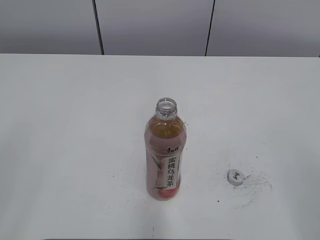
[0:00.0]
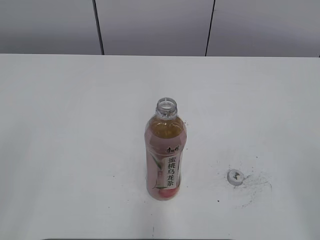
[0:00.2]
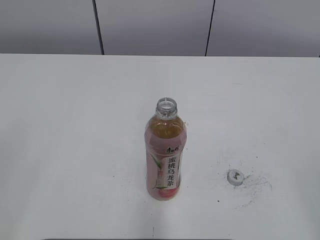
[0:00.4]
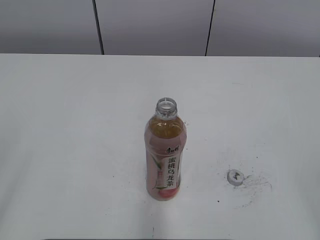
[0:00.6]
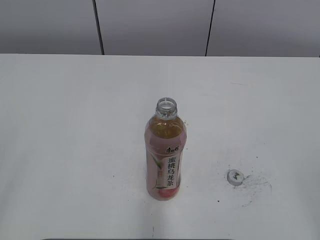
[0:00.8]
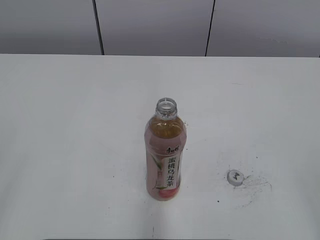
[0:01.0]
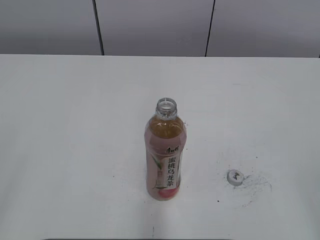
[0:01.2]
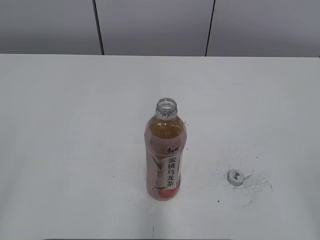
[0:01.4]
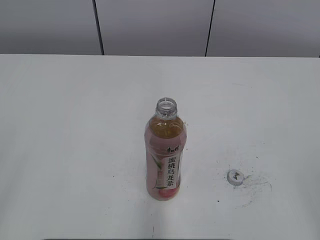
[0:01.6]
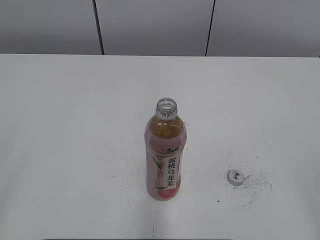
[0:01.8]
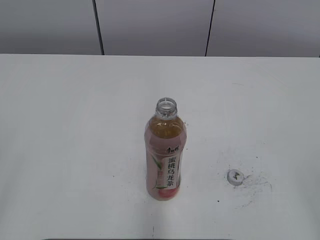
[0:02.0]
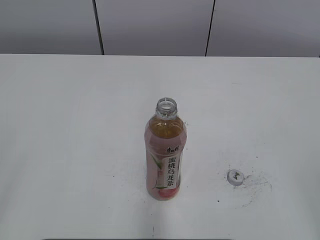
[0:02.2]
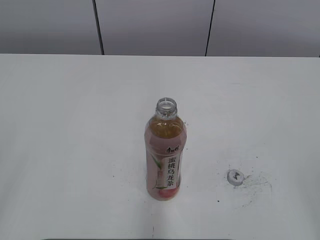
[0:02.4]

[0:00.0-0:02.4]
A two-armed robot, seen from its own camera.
0:01.2 to 0:02.4: Neither gripper changes place.

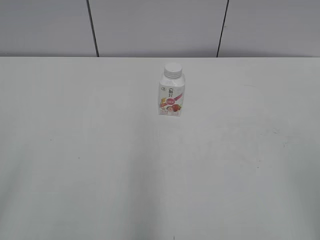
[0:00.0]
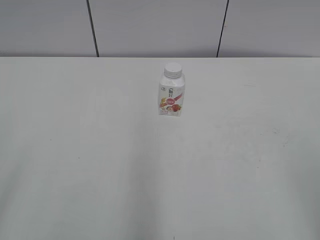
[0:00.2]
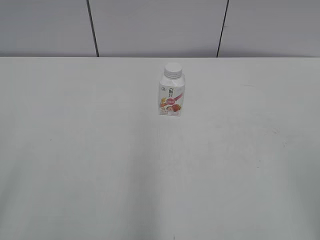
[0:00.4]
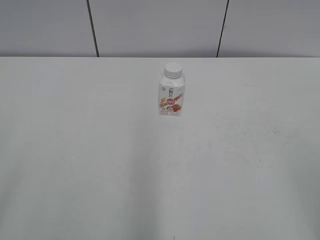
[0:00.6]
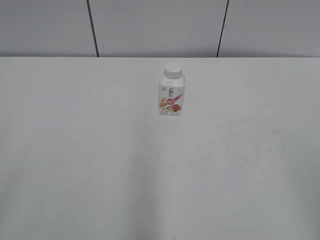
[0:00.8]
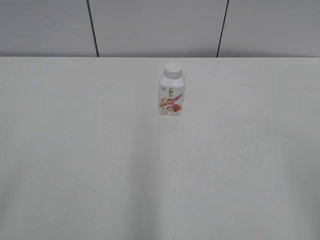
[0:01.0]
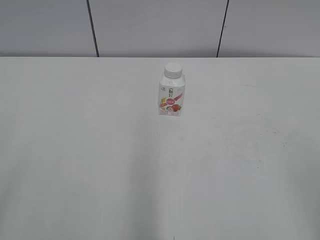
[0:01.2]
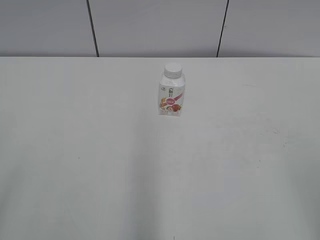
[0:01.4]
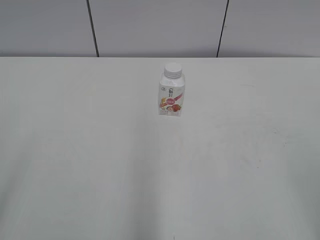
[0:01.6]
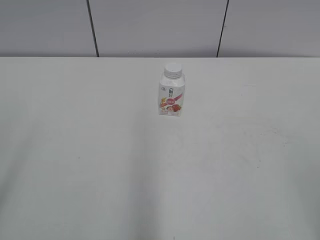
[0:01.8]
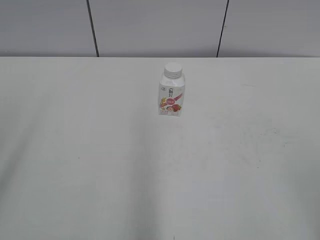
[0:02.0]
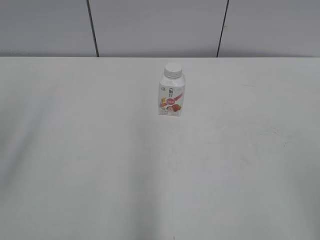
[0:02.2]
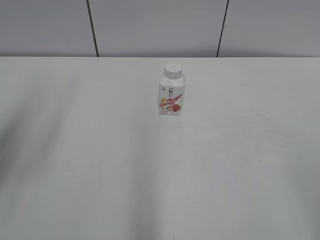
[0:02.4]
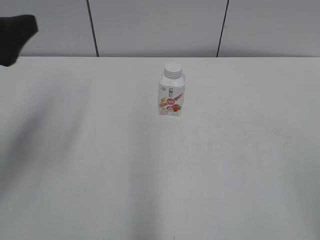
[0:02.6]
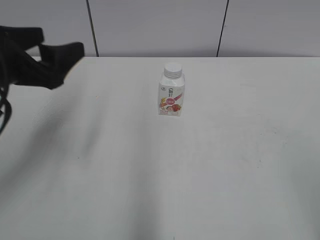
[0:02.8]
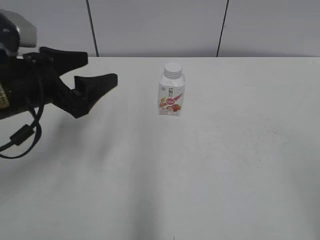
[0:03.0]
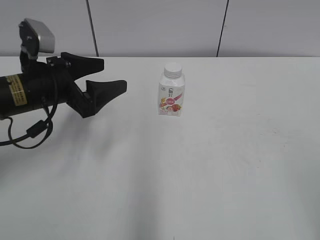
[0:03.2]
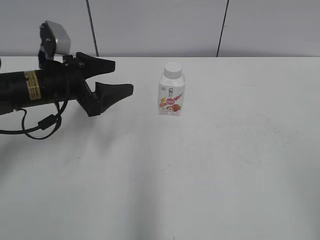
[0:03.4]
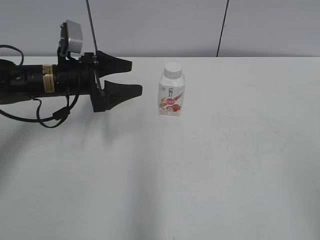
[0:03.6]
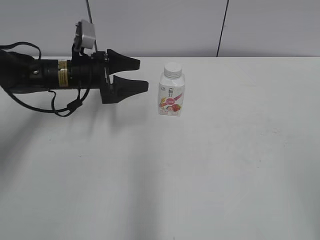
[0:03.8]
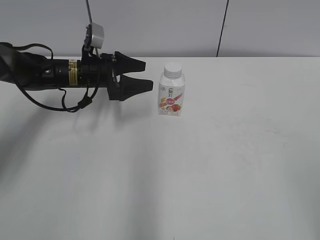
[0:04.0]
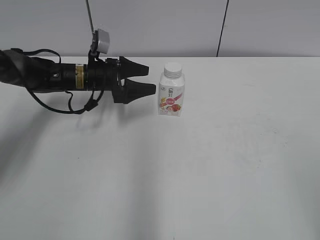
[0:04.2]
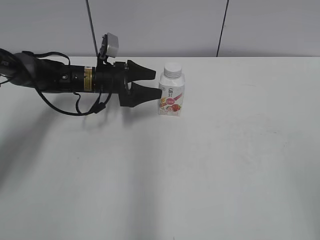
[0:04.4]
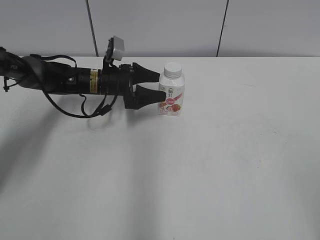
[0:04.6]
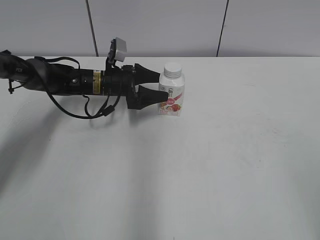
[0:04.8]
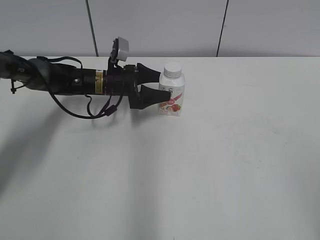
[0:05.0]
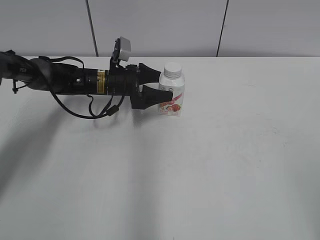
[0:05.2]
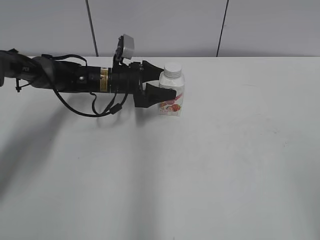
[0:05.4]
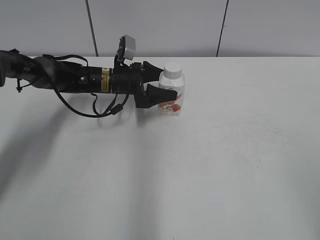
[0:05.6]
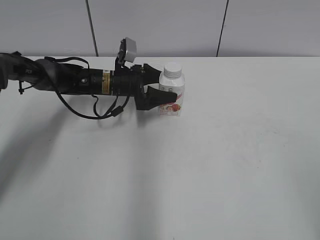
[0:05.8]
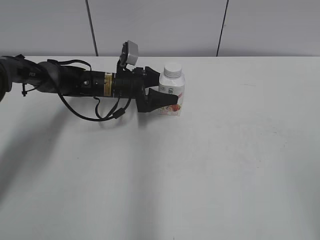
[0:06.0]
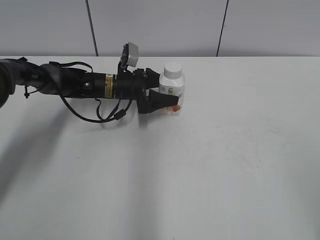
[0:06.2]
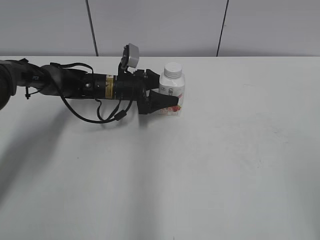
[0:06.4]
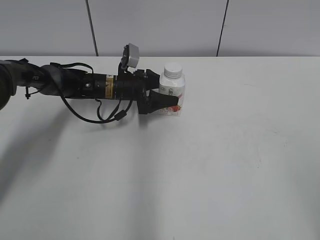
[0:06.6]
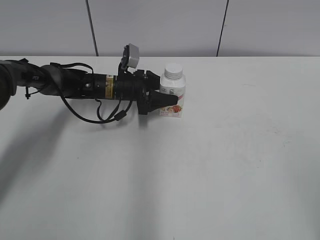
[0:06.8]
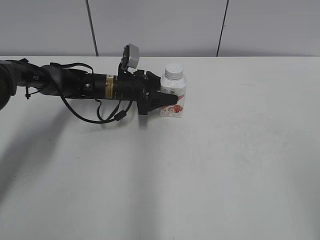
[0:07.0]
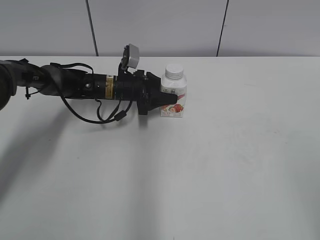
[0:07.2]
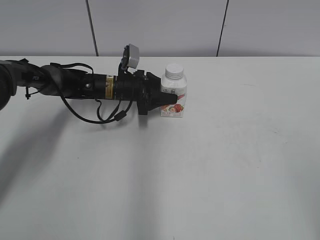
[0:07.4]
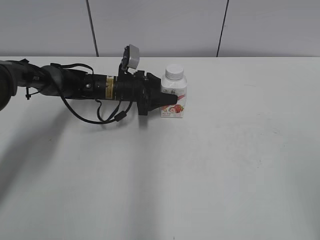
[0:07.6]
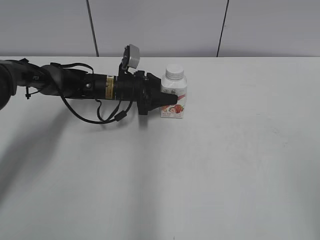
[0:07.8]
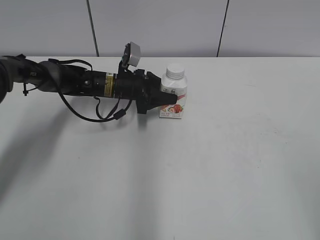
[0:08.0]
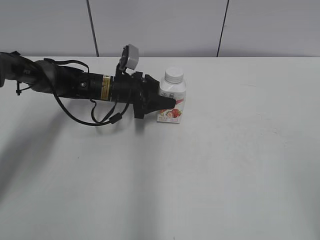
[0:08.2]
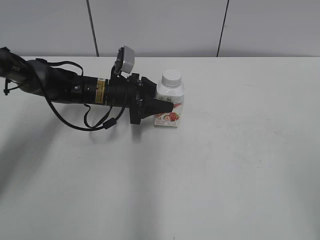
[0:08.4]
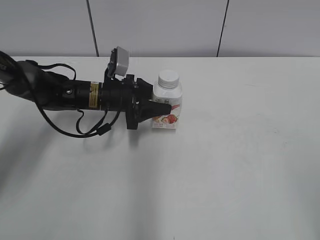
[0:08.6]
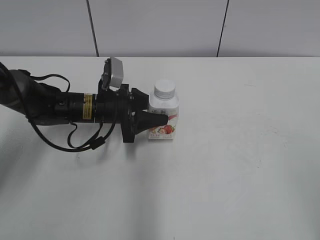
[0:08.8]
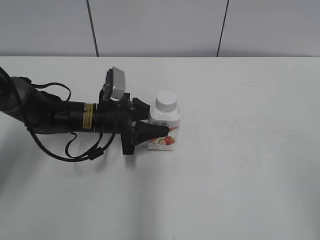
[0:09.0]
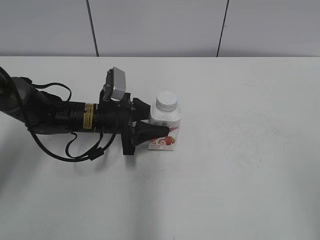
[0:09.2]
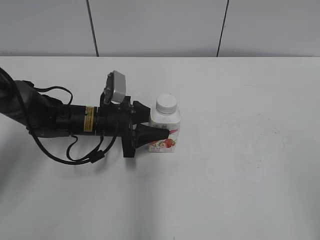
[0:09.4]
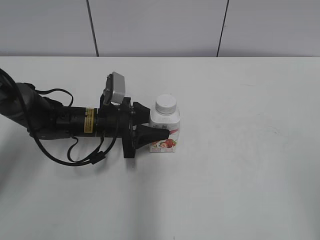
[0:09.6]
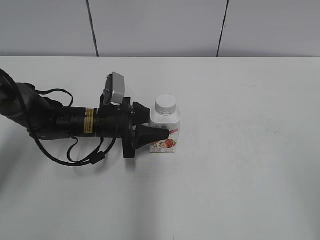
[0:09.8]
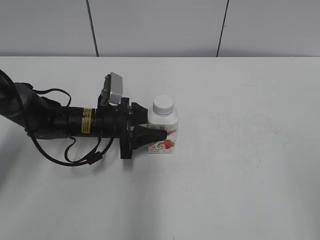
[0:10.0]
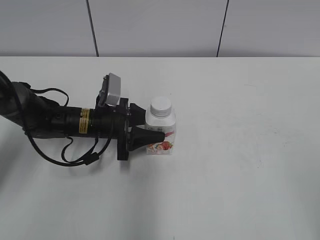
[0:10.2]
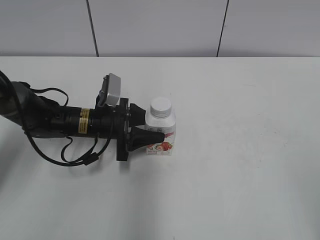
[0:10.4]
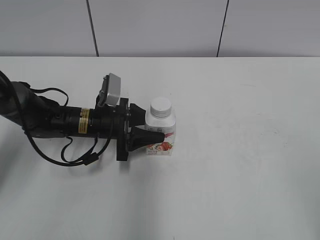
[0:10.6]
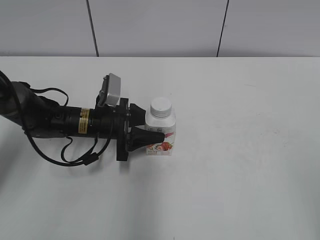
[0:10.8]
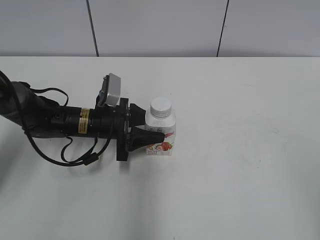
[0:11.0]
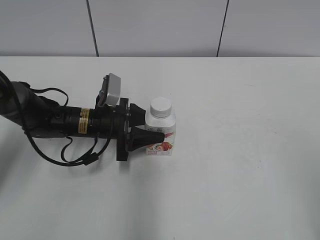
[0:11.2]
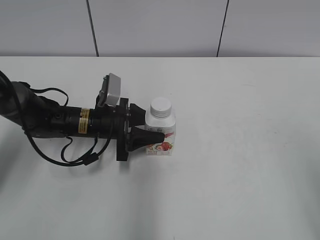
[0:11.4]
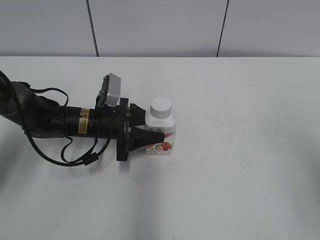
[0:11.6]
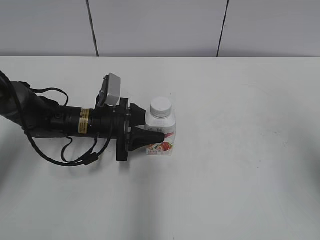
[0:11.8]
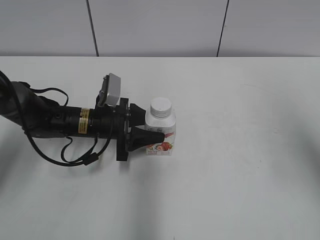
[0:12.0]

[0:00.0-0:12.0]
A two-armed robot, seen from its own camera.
Step, 0:00.0 to 0:06.8: Grab the Yili Changqing with the left hand.
Step, 0:07.2 to 0:10.2: Move the Yili Changqing from left to right.
0:01.6 to 0:03.0: The left gripper heads forward and to the right, covering roughly 30 cm.
0:03.0 to 0:04.4: The left gripper moves forward and downward, some 25 cm.
0:04.4 to 0:06.0: The grippers move only a little.
0:06.0 to 0:07.6: The left gripper closes its fingers.
0:07.6 to 0:09.0: The left gripper shifts about 10 cm backward.
0:09.0 to 0:10.4: There are only small adjustments of the grippers.
0:10.4 to 0:12.0: The right gripper moves forward, roughly 20 cm.

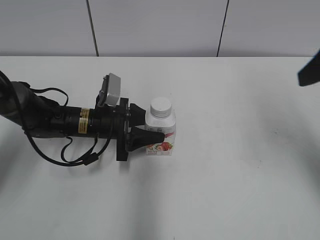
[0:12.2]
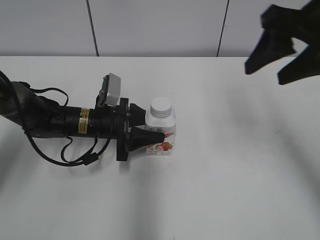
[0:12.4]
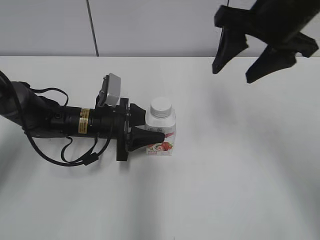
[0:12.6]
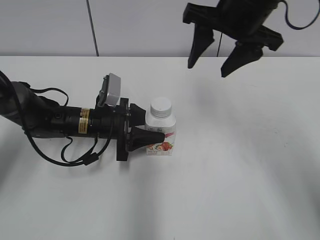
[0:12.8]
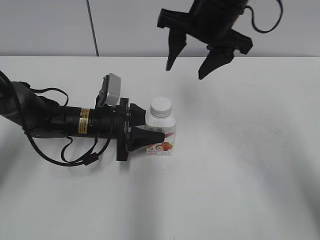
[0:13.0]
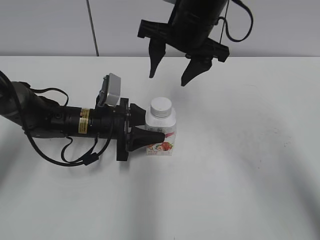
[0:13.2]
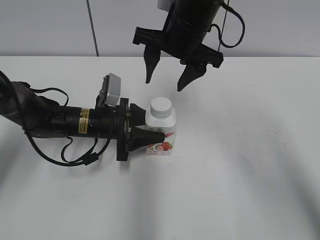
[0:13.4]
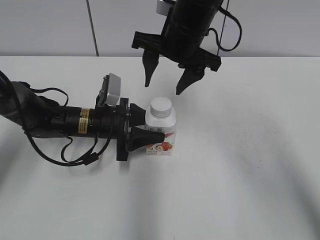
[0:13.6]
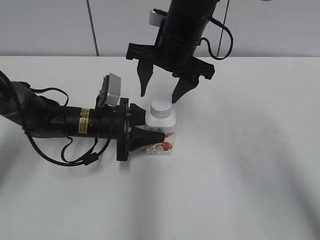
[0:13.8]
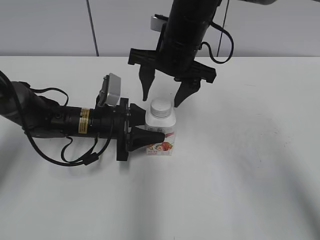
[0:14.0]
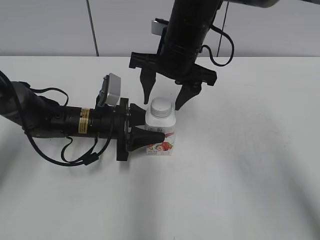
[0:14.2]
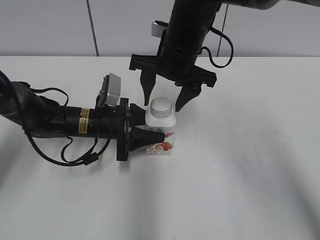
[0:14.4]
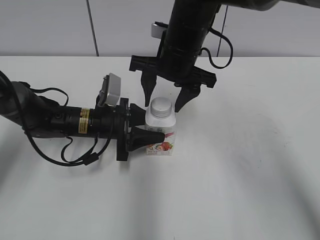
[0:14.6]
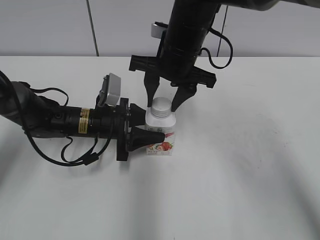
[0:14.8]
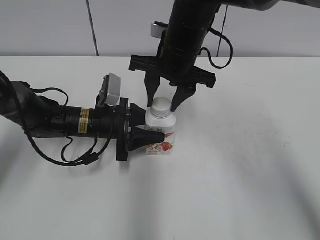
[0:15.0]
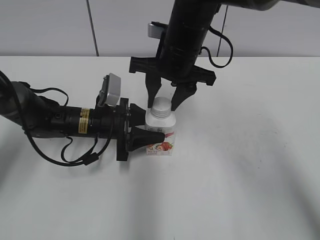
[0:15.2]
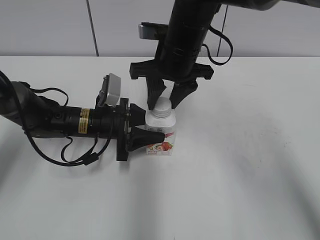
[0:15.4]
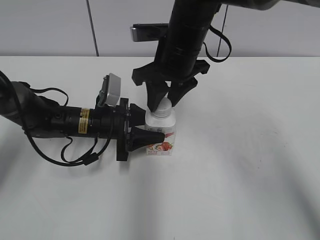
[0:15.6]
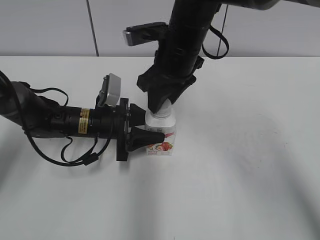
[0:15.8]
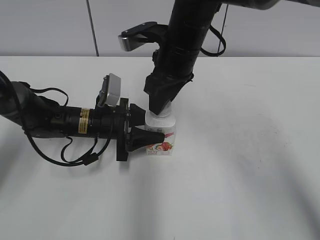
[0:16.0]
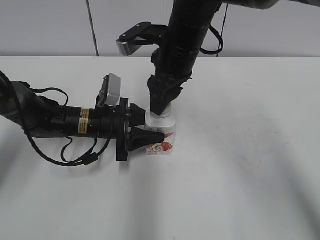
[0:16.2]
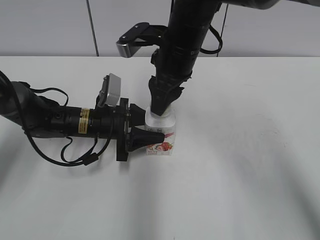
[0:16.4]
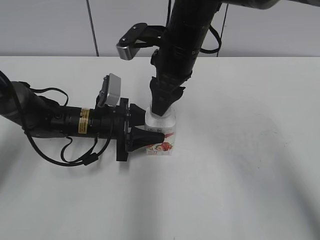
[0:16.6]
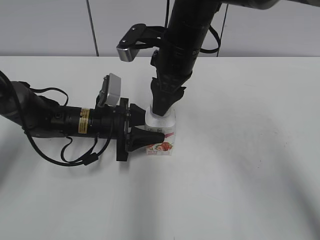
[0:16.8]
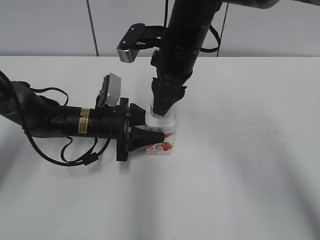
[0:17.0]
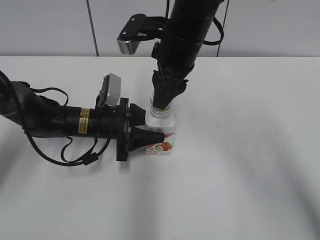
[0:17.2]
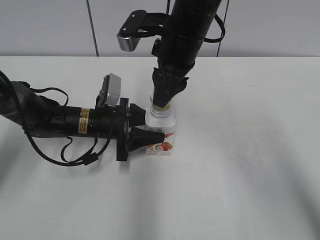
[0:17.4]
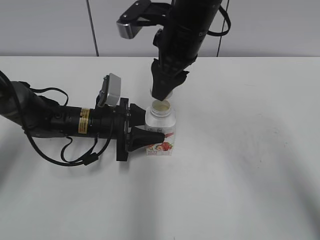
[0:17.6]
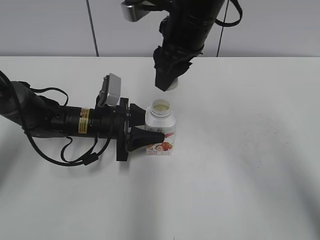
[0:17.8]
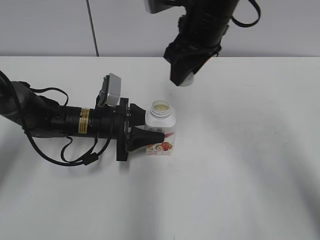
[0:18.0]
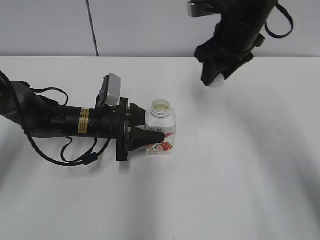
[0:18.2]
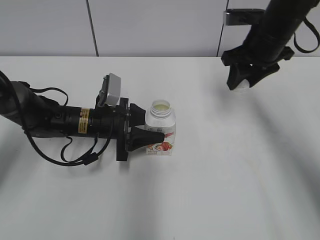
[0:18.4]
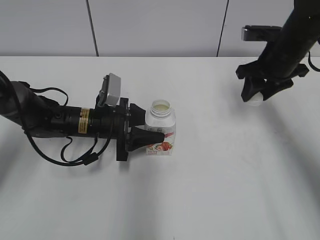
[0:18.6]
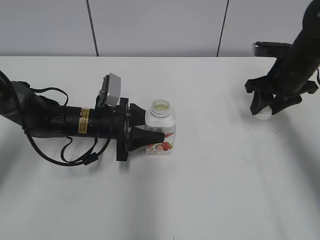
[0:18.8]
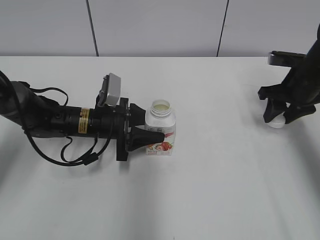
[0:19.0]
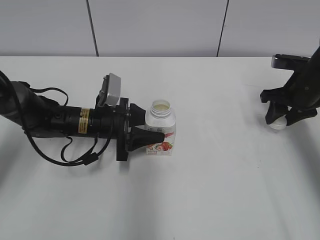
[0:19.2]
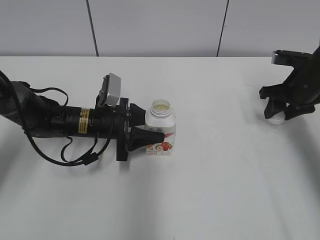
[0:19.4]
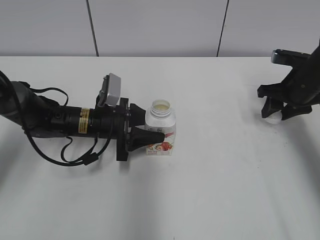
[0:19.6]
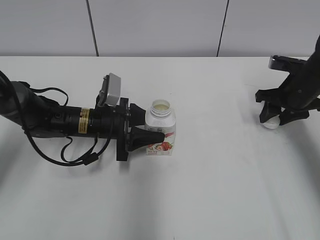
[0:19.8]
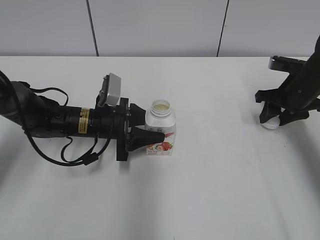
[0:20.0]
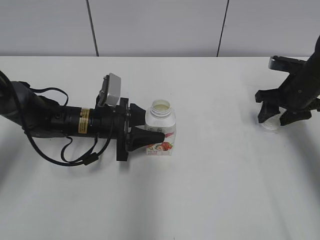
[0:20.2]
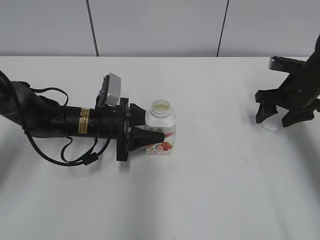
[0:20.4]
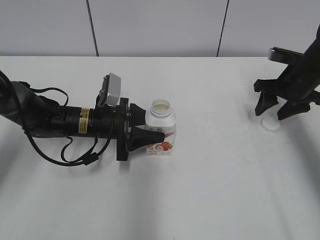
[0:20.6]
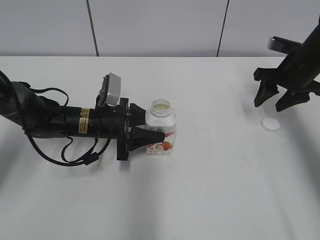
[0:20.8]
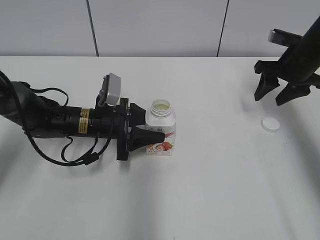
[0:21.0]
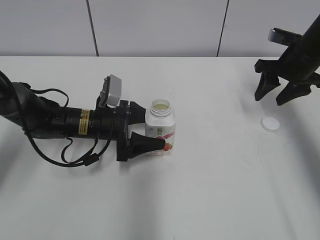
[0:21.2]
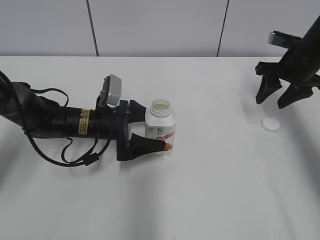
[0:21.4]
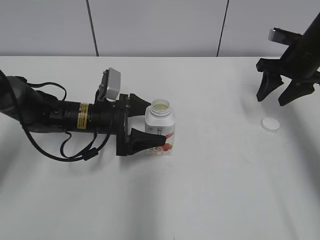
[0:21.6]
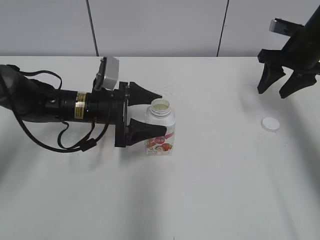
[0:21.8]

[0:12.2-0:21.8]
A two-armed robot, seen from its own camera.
Step, 0:12.2 to 0:17.0: Twist the bottle cap with the right hand.
Step, 0:17.4 to 0:20.4: Place the bottle cap on the right.
0:12.2 to 0:13.8: The right gripper heads to the left and forward, covering roughly 25 cm.
0:13.8 to 0:15.4: The right gripper closes its fingers.
0:17.0 to 0:18.6: The right gripper travels to the right by some 20 cm.
0:18.6 to 0:20.2: The right gripper goes approximately 10 cm downward and to the right.
0:20.2 to 0:21.8: The left gripper opens. The right gripper travels upward by some 5 cm, and opens up.
